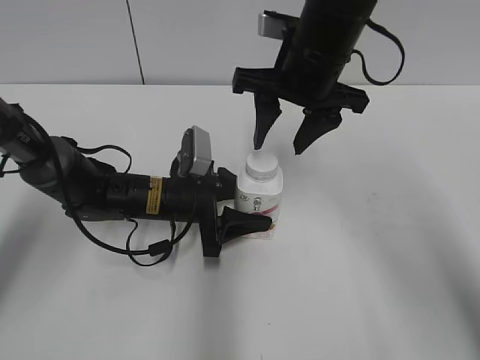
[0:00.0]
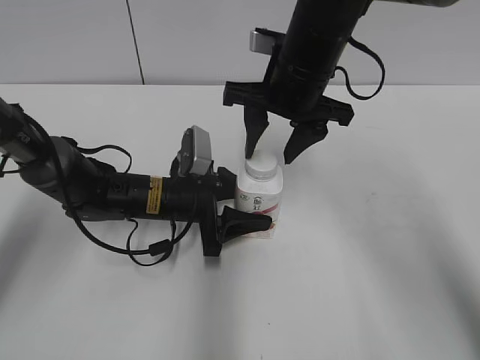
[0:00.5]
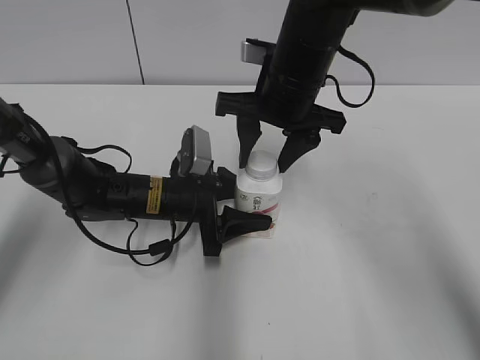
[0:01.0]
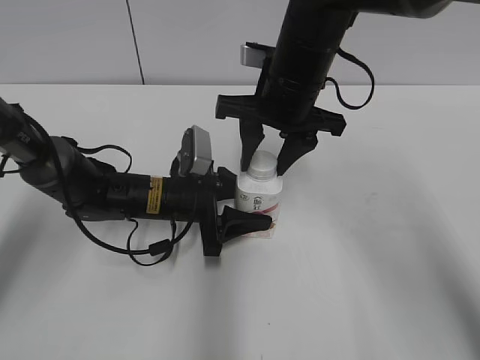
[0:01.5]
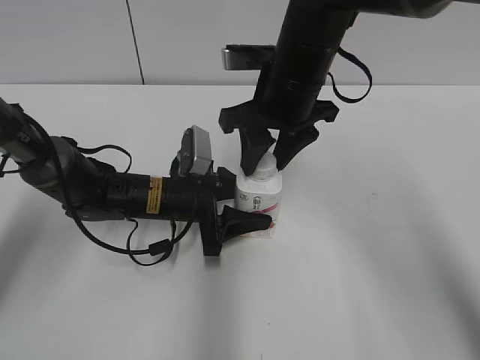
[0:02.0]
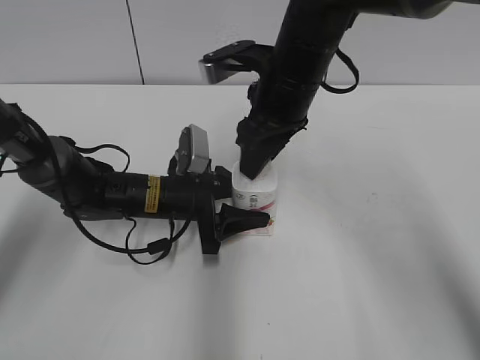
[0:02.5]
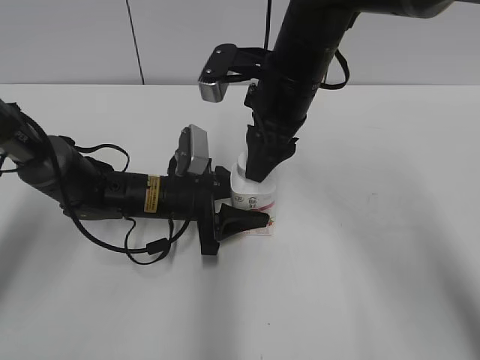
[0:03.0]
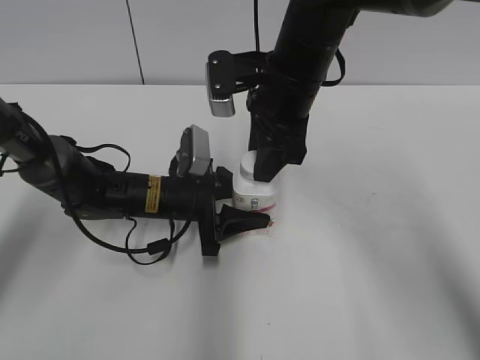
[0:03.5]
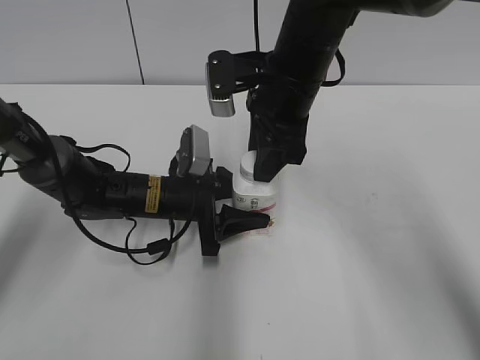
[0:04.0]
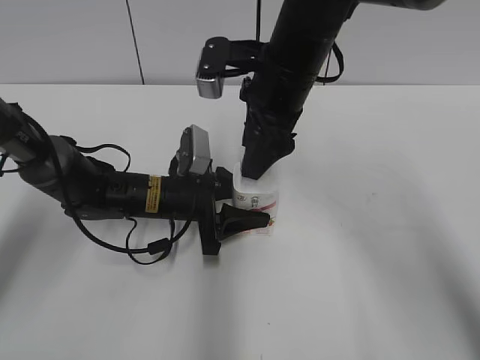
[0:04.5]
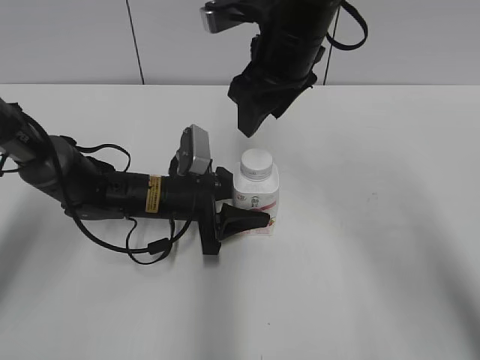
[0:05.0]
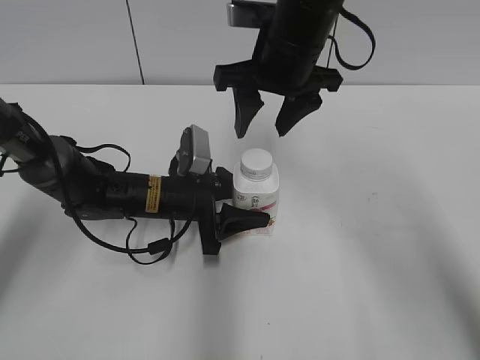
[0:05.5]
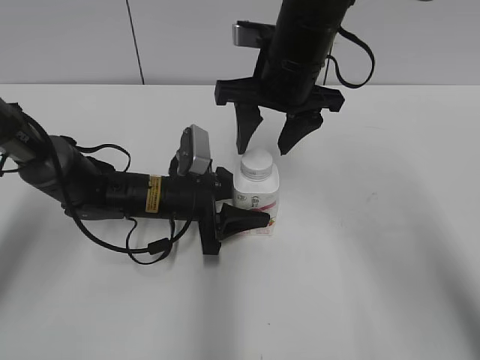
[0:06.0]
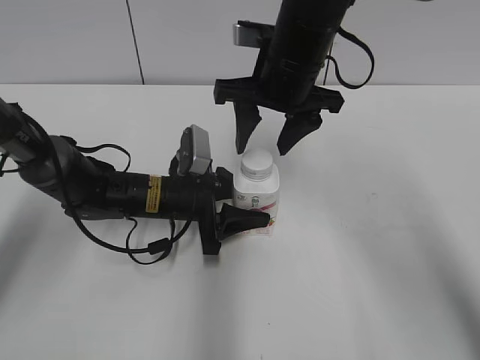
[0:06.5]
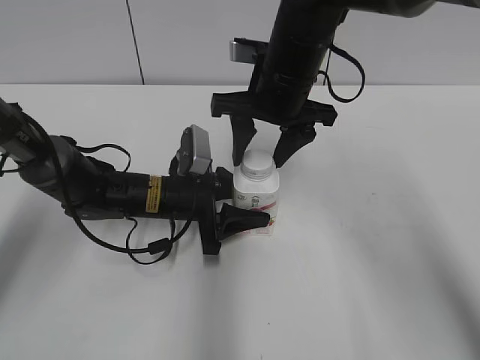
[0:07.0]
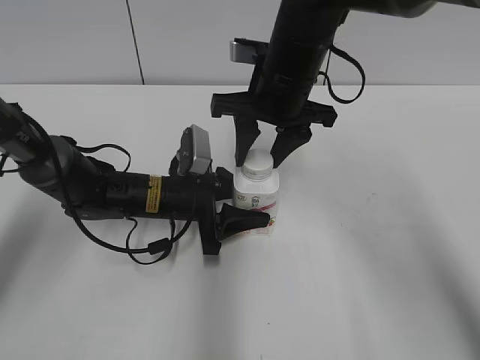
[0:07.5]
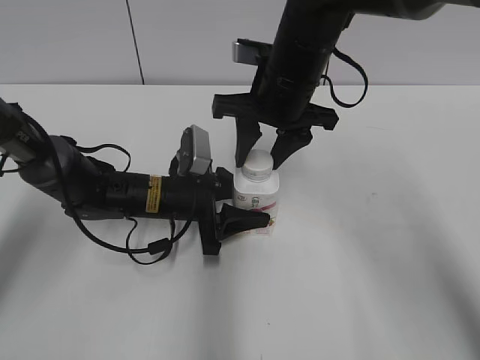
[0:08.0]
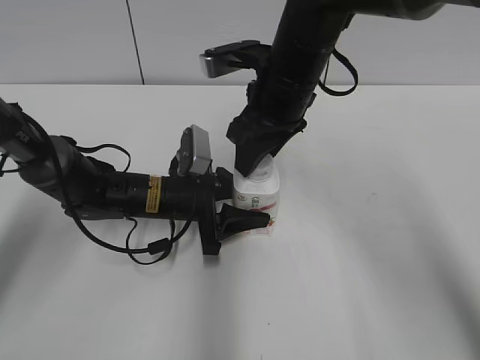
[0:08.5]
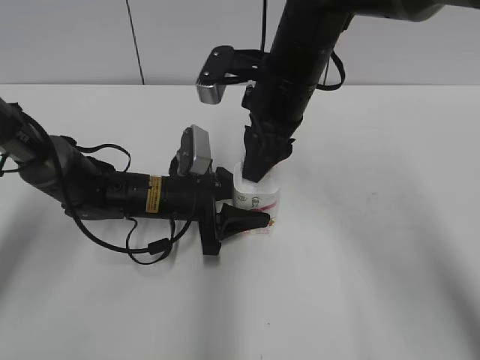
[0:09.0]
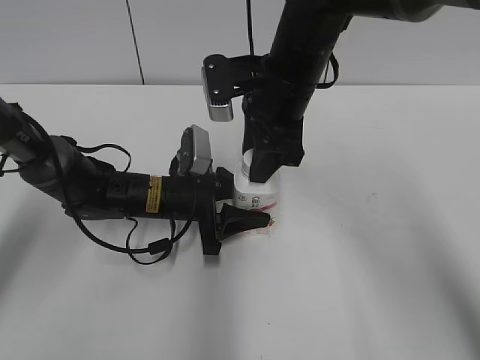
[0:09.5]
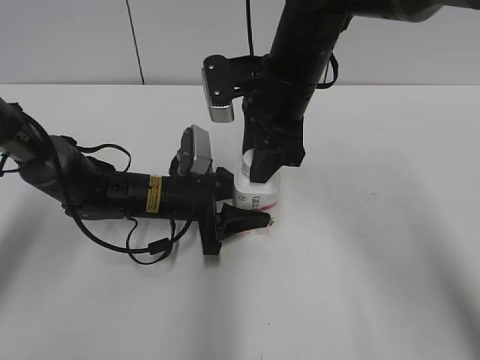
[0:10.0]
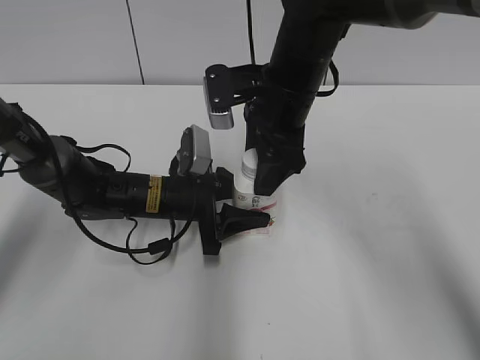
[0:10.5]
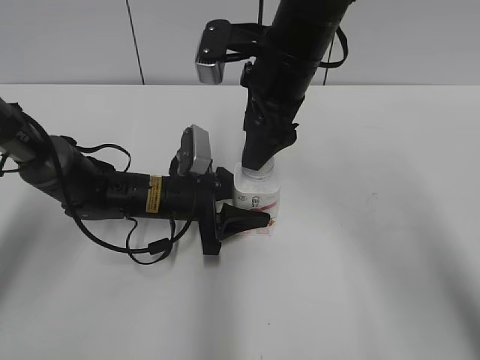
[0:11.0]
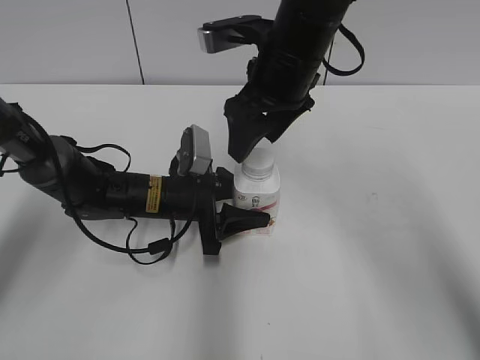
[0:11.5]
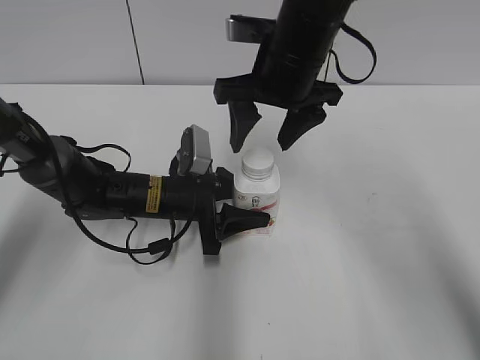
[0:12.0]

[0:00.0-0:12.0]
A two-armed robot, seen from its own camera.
0:04.0 to 0:06.0: The right gripper opens up.
0:06.0 to 0:08.0: The right gripper closes up.
0:10.0 to 0:12.0: The right gripper opens.

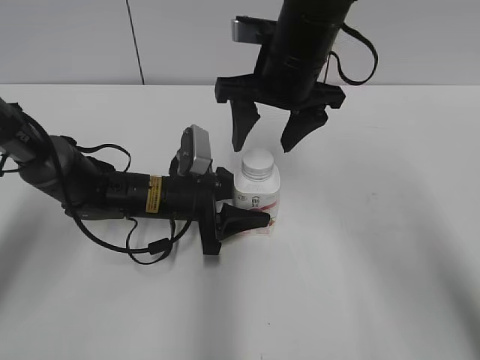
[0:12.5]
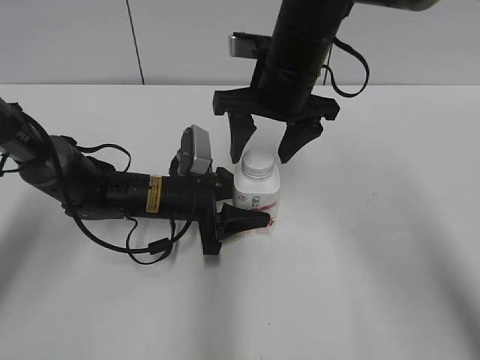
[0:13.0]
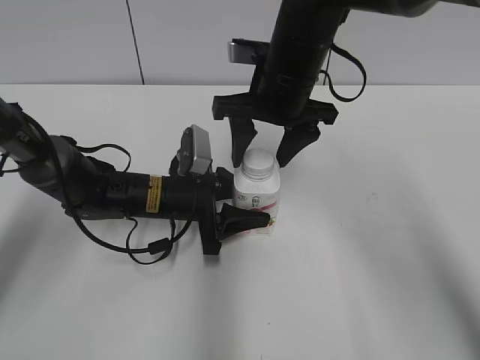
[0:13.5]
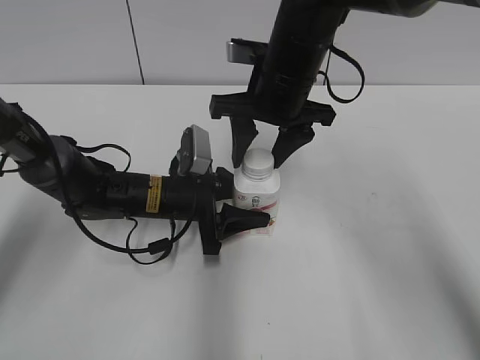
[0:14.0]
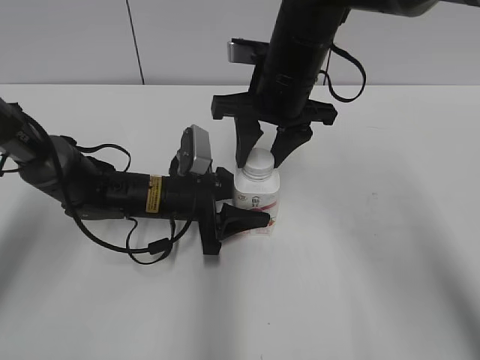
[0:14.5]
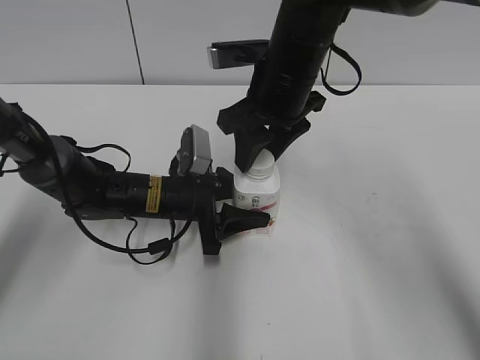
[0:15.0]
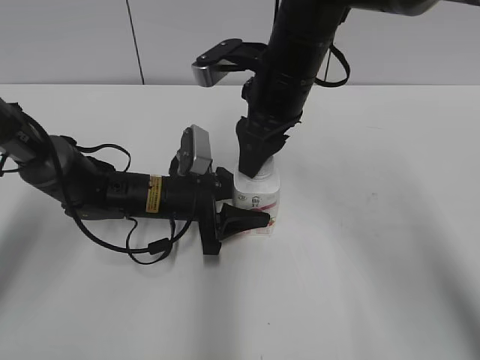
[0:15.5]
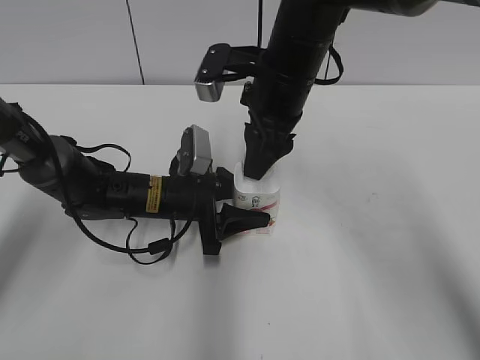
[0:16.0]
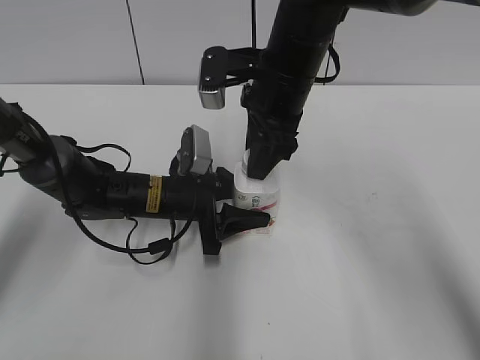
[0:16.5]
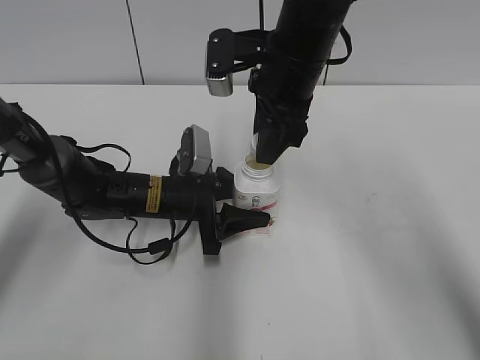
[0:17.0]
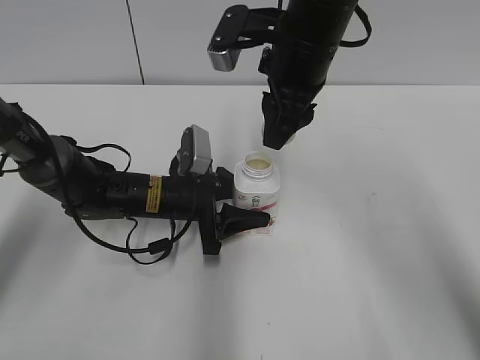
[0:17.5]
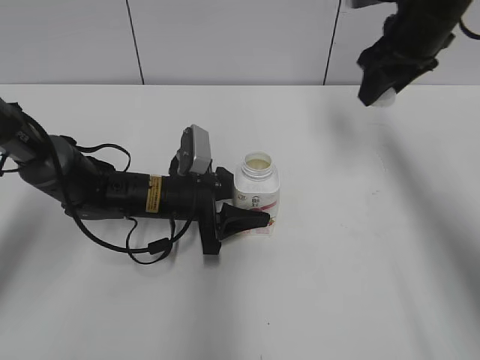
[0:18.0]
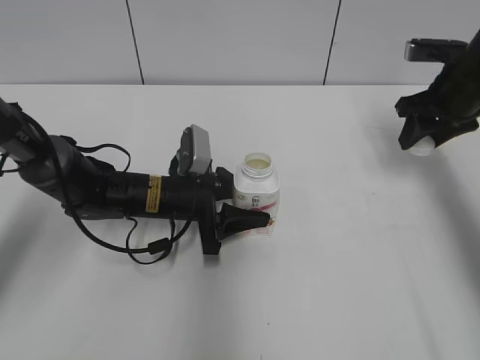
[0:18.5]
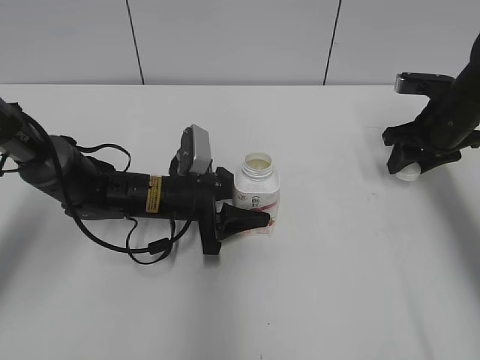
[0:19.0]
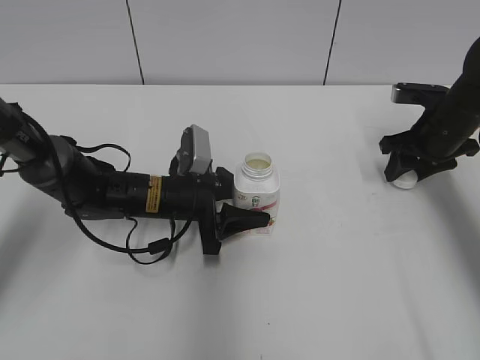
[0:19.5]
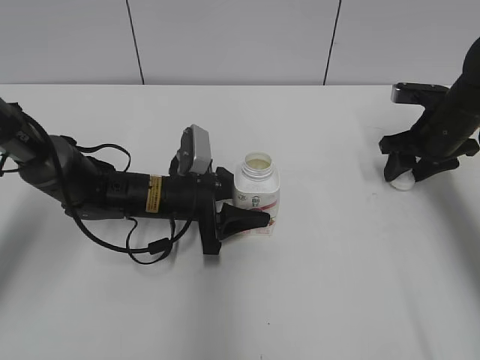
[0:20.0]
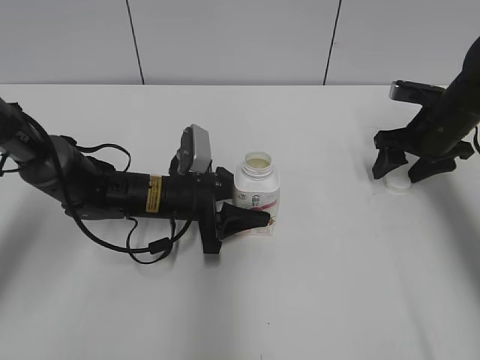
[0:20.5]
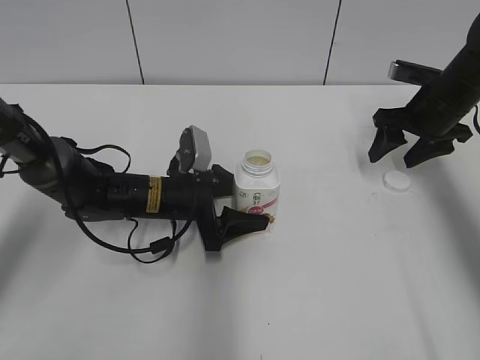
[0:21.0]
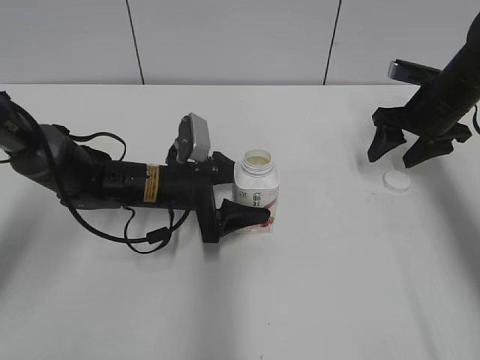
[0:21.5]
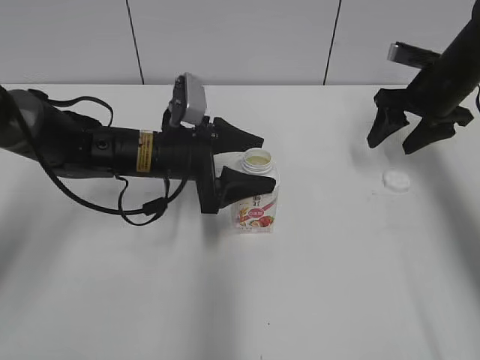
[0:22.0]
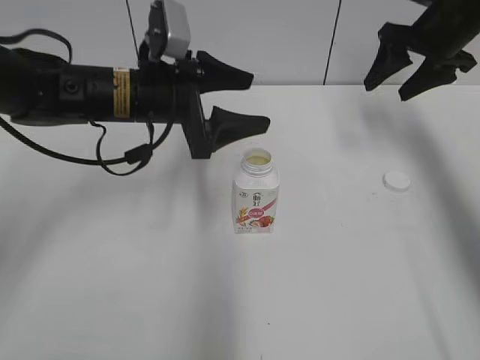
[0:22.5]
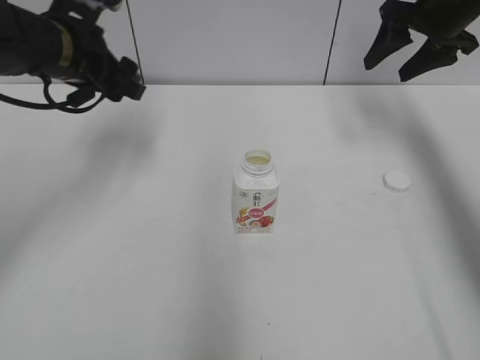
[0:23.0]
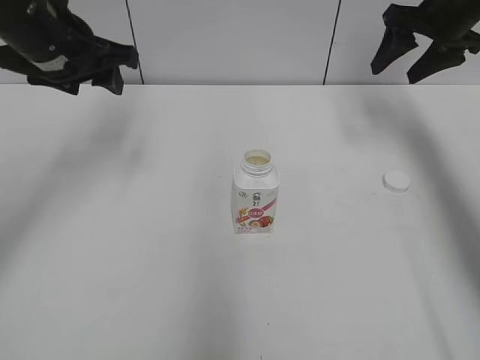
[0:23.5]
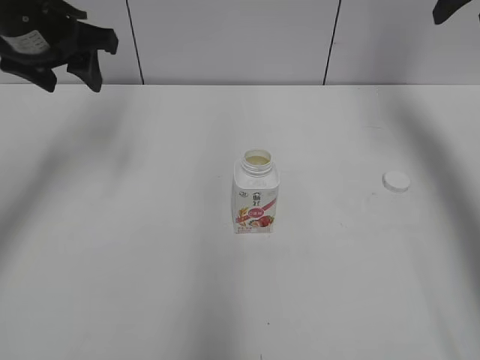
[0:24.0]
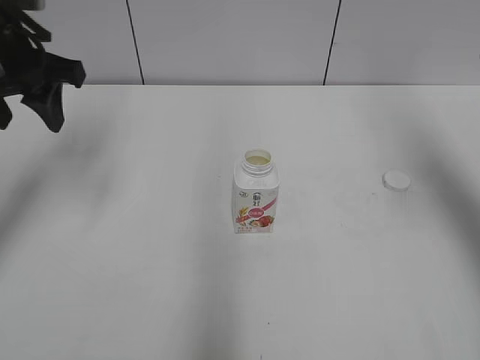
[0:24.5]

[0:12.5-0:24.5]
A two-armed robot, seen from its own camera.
Step, 0:17.0 to 0:20.0: Place the bottle cap on the right.
Step, 0:20.5 to 0:21.0: Place the Yili Changqing with the left hand.
0:12.5 to 0:14.5: The right gripper closes up.
0:16.5 to 0:18.5: The right gripper shifts approximately 25 cm to the right.
0:18.5 to 0:20.5: The right gripper travels downward by approximately 5 cm, and opens.
0:20.5 to 0:22.5: The grippers both shift upward by approximately 15 cm. The left gripper opens up.
0:22.5 to 0:24.5: The right gripper heads backward and upward, covering some 20 cm. The left gripper moves to the left and upward, approximately 15 cm, and closes.
